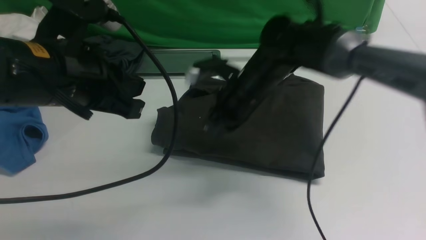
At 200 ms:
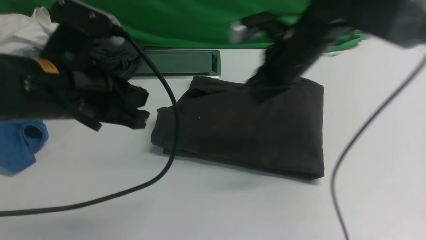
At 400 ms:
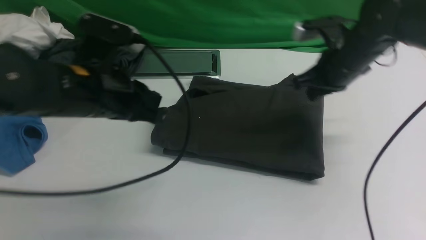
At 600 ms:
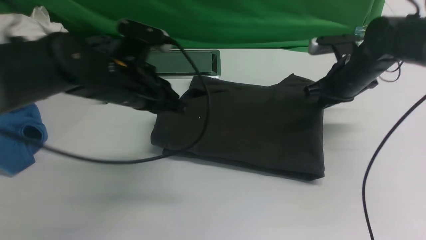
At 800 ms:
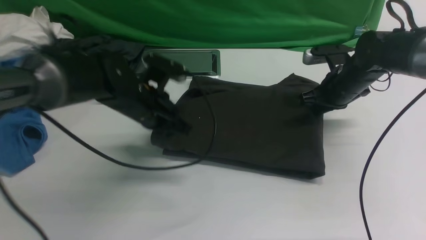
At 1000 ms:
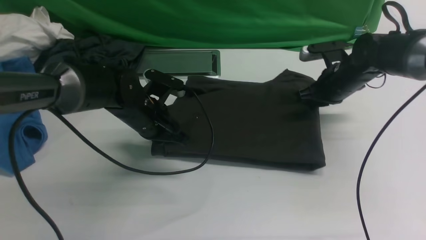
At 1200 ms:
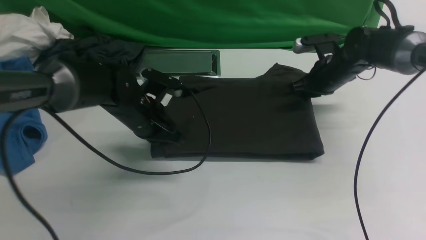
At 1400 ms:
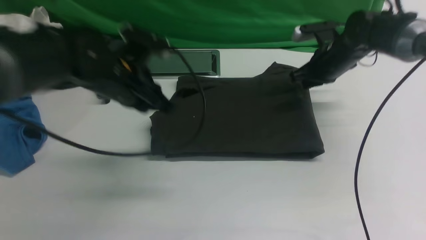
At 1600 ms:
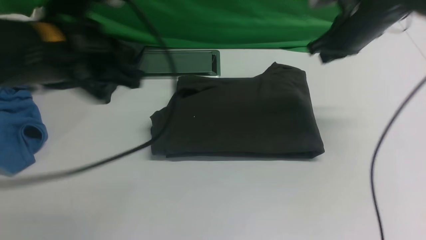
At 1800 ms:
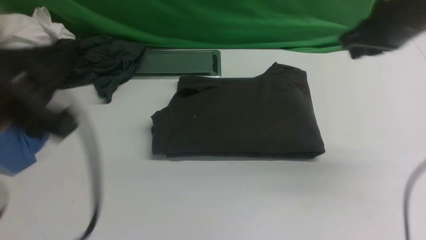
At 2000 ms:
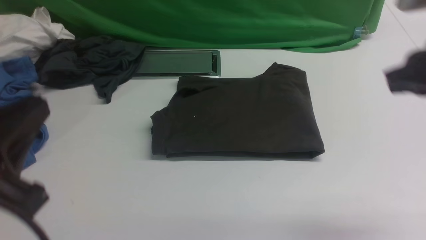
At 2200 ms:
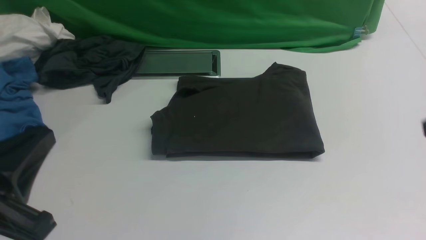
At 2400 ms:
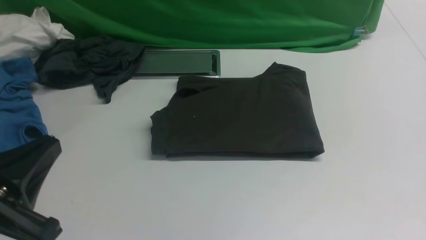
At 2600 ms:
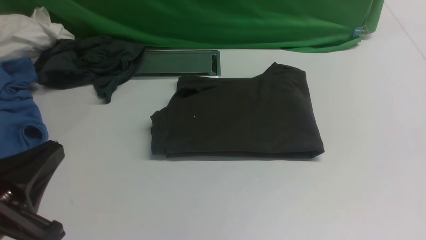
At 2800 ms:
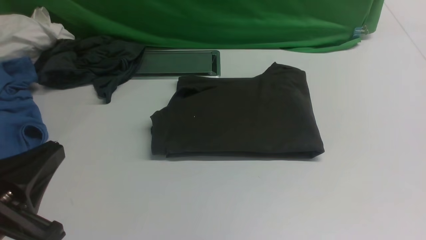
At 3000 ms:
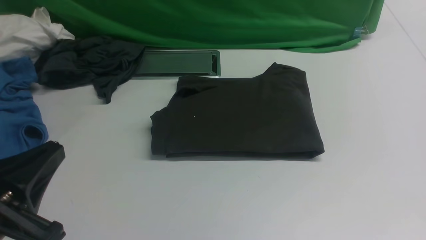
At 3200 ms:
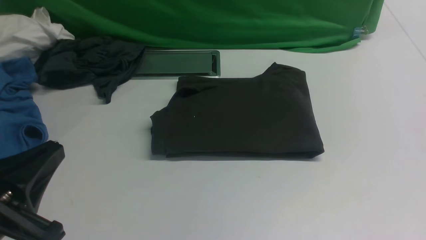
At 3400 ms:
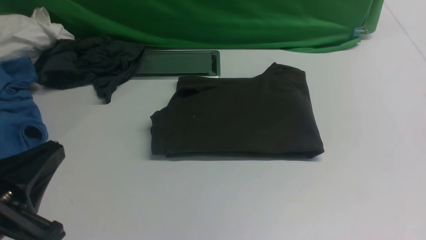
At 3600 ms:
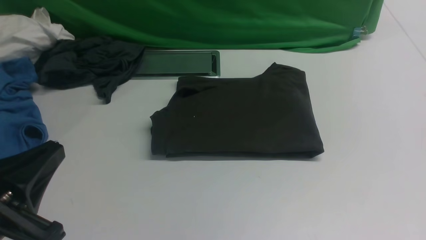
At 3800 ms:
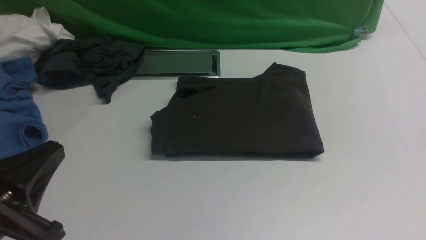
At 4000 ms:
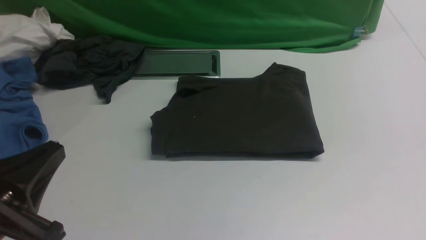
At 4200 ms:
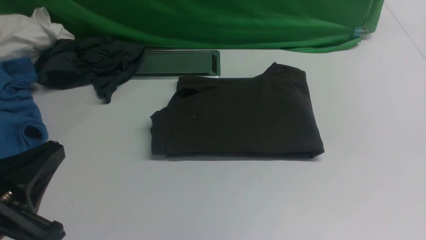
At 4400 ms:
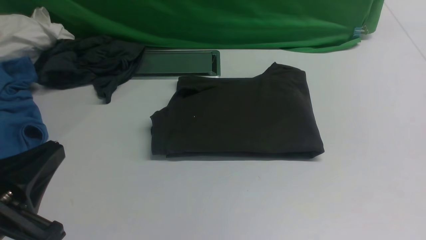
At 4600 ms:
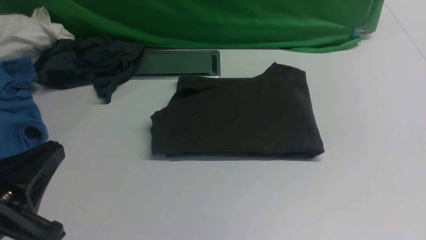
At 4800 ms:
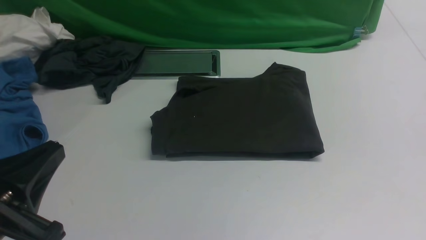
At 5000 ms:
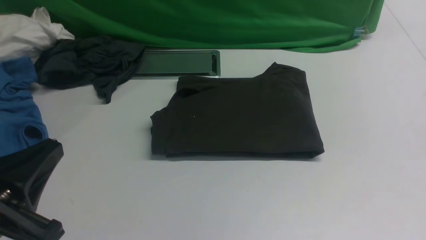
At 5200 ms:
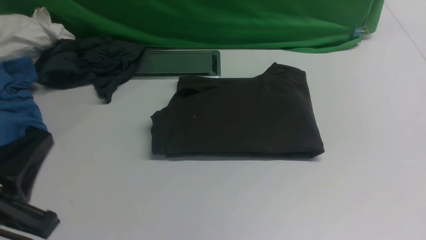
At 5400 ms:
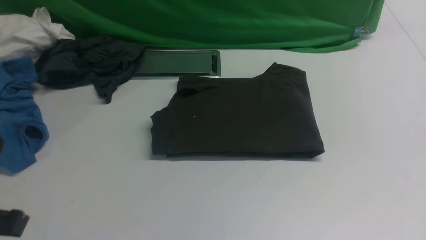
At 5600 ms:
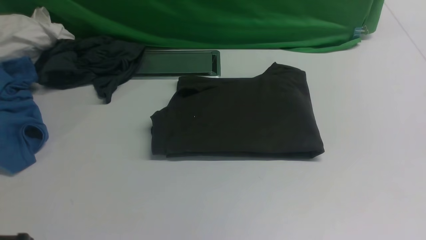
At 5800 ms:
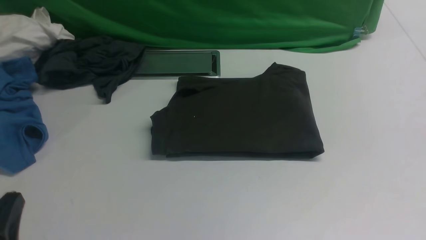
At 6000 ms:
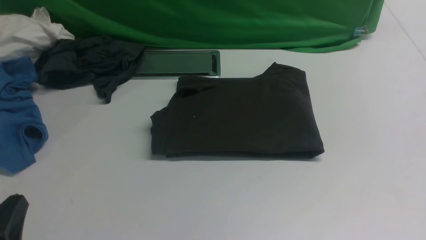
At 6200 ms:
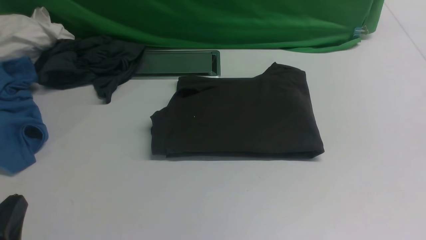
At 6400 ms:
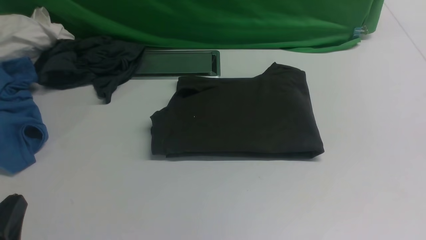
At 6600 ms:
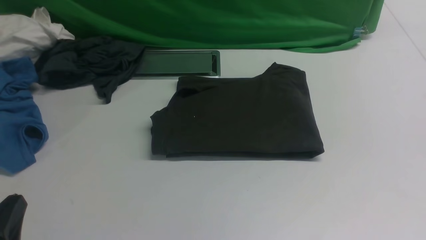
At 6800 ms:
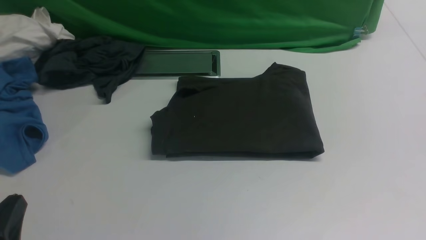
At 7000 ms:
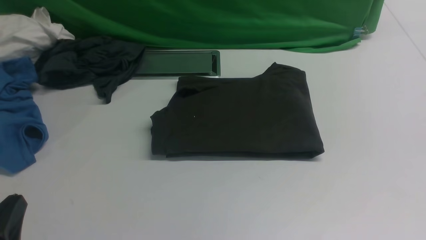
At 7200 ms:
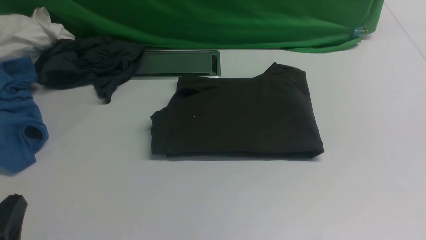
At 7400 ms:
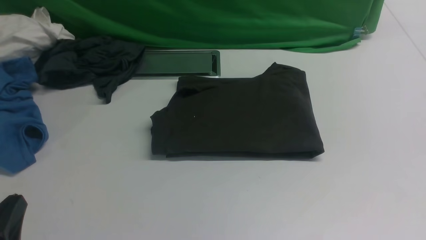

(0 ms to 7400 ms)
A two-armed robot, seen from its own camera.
0 ms - 1400 ms: The right gripper moves to the right and forward, roughly 20 cm. The left gripper shifts some 10 cm forward, and reaches roughly 15 cm downward, then returns.
1400 ms - 3000 ms: The left gripper goes roughly 25 cm backward; the right gripper shifts some 40 cm backward.
4400 ms - 6000 ms: The left gripper is displaced downward by some 10 cm.
6000 ms - 7400 ms: The two grippers keep their place.

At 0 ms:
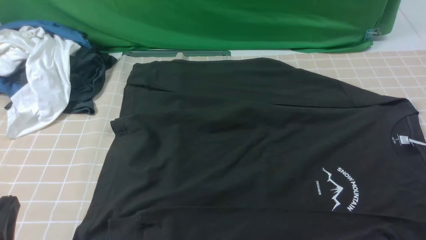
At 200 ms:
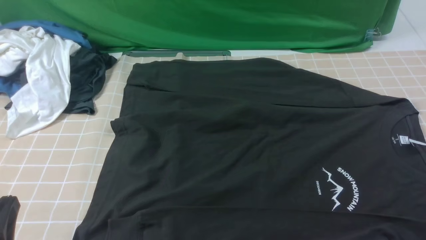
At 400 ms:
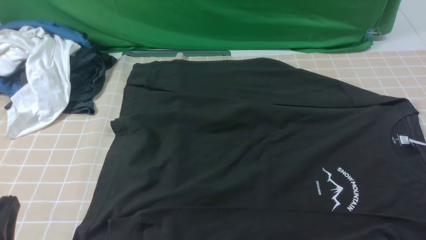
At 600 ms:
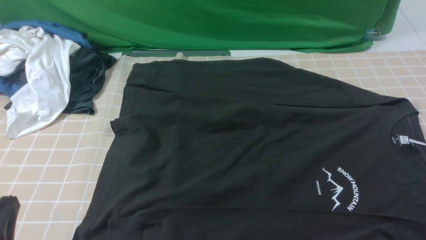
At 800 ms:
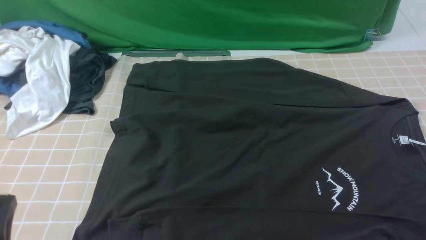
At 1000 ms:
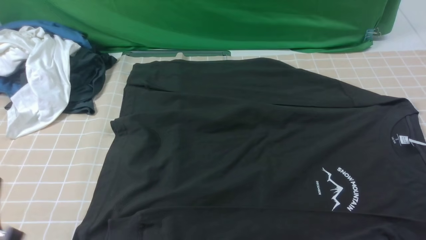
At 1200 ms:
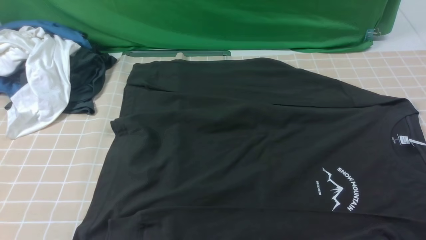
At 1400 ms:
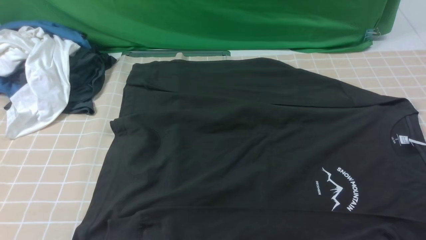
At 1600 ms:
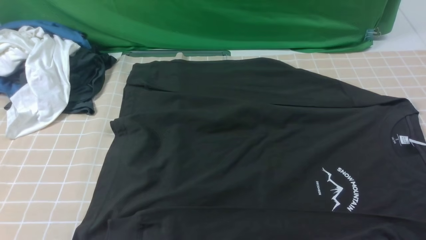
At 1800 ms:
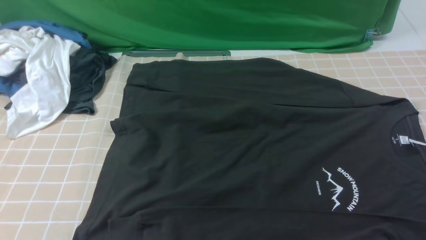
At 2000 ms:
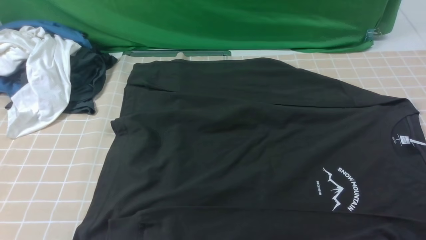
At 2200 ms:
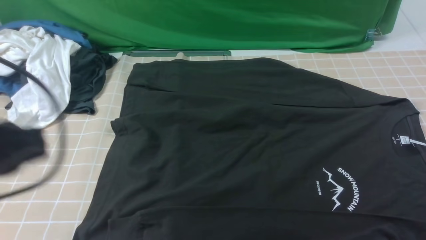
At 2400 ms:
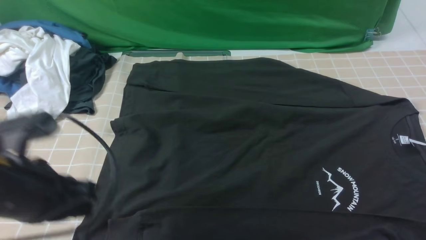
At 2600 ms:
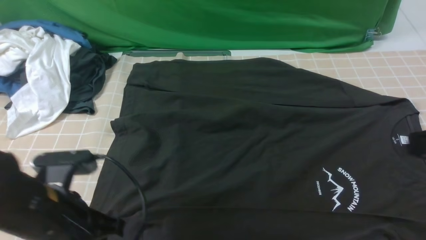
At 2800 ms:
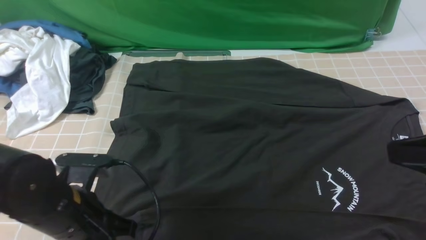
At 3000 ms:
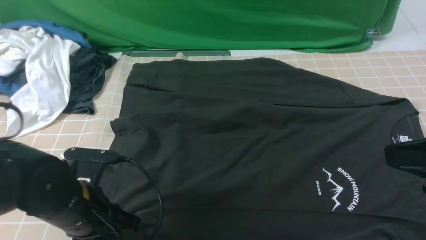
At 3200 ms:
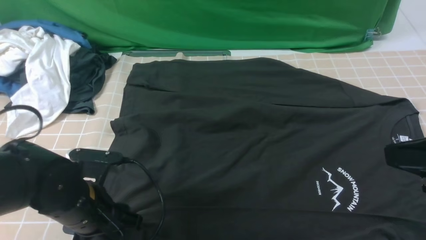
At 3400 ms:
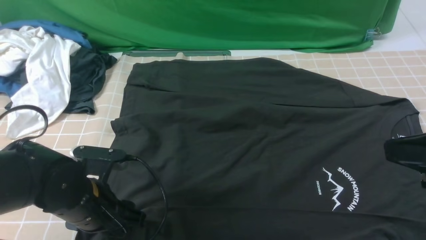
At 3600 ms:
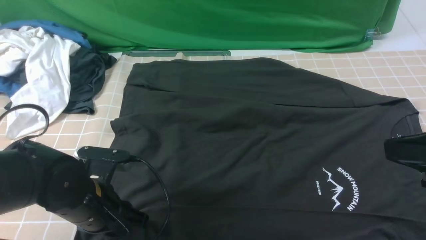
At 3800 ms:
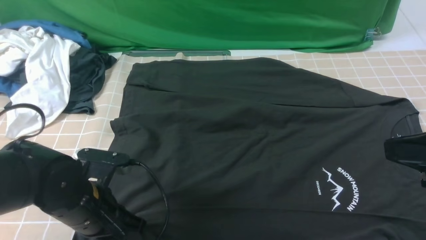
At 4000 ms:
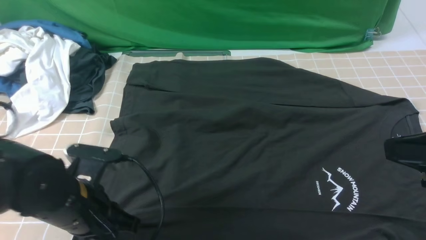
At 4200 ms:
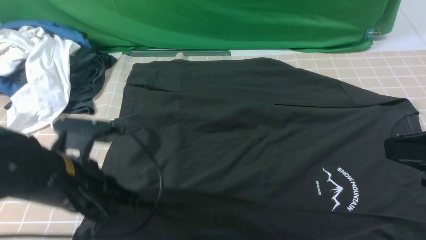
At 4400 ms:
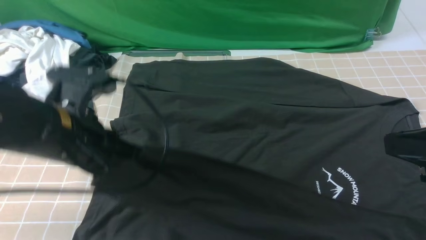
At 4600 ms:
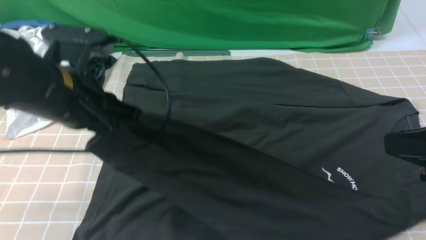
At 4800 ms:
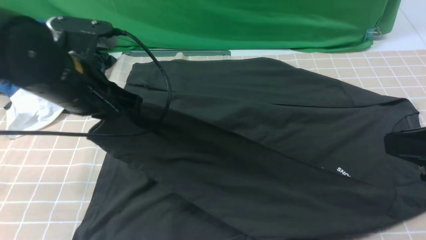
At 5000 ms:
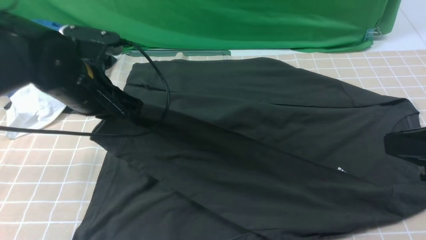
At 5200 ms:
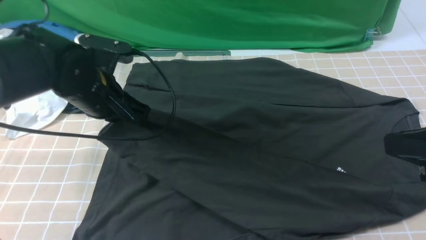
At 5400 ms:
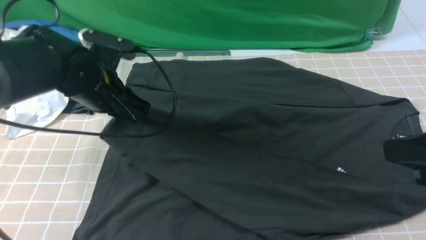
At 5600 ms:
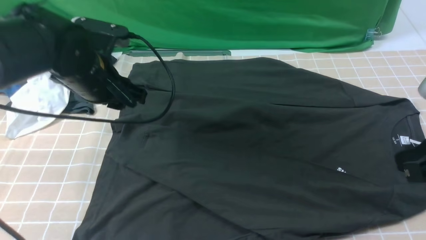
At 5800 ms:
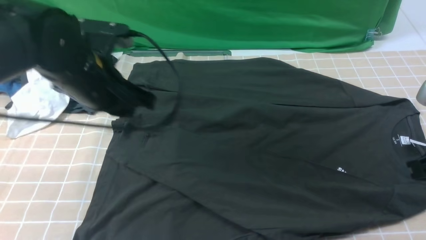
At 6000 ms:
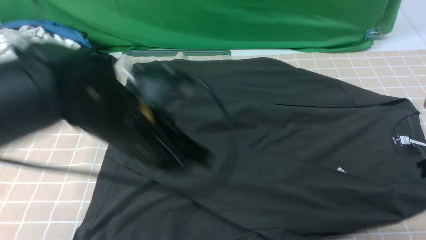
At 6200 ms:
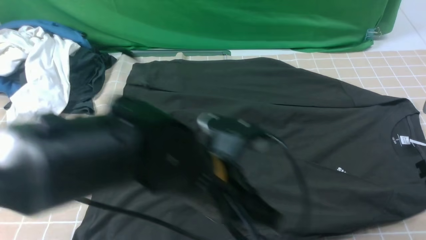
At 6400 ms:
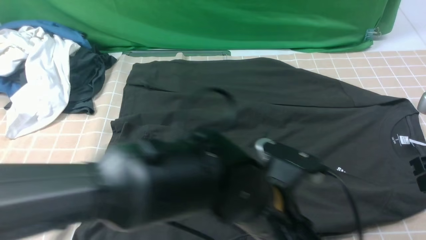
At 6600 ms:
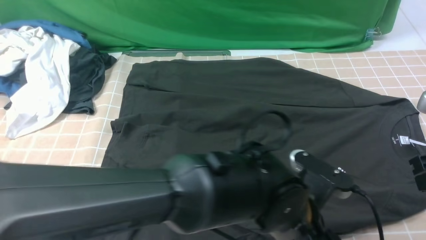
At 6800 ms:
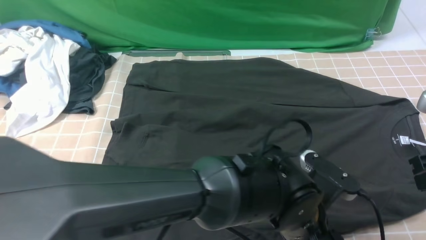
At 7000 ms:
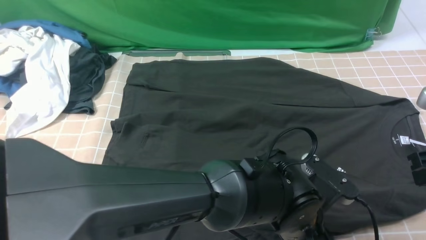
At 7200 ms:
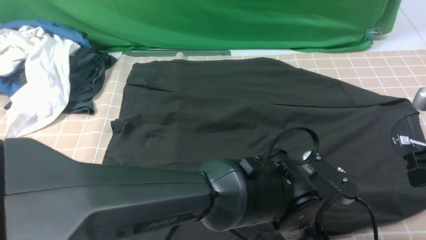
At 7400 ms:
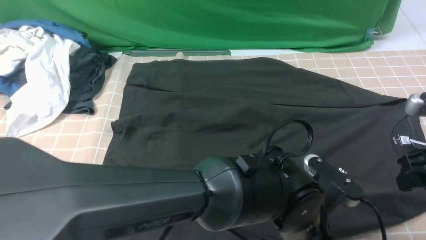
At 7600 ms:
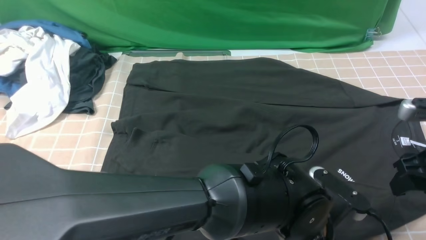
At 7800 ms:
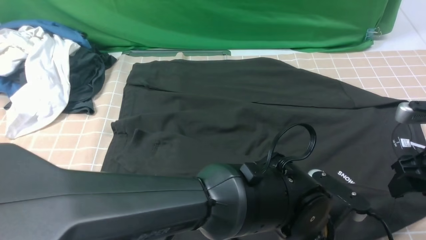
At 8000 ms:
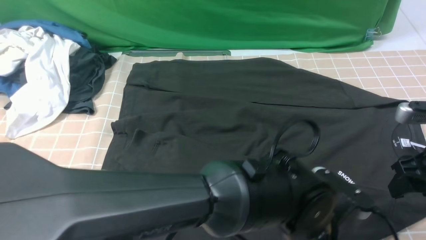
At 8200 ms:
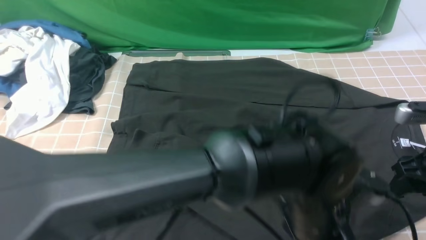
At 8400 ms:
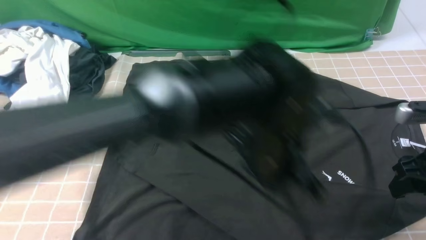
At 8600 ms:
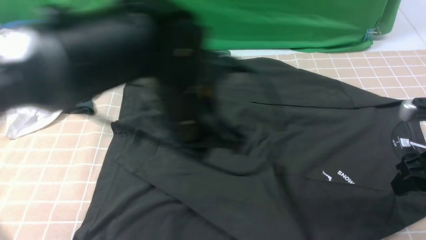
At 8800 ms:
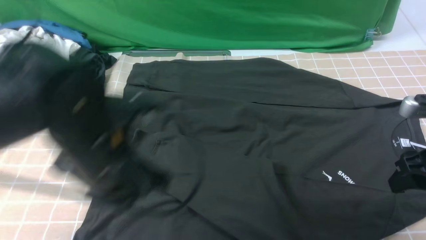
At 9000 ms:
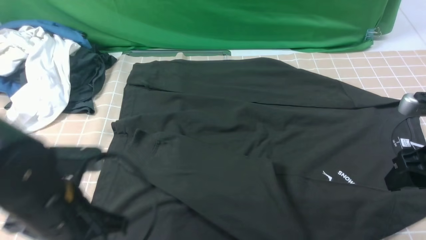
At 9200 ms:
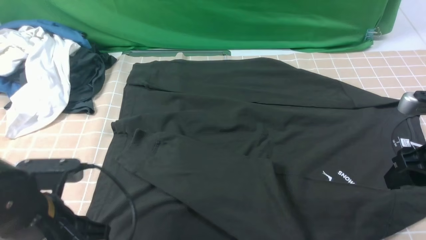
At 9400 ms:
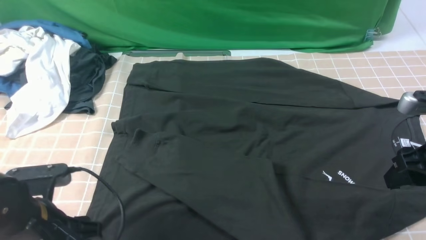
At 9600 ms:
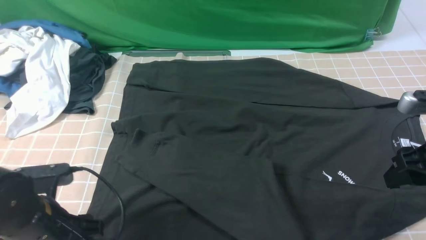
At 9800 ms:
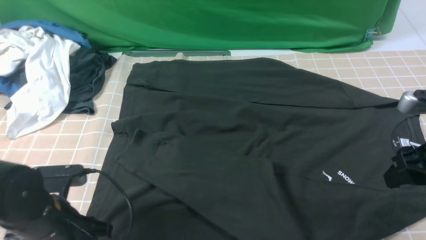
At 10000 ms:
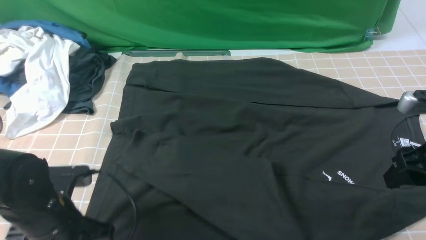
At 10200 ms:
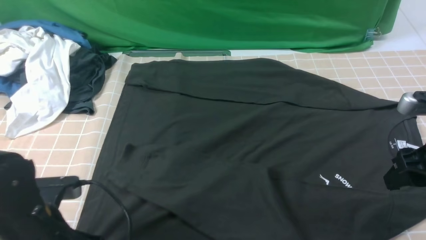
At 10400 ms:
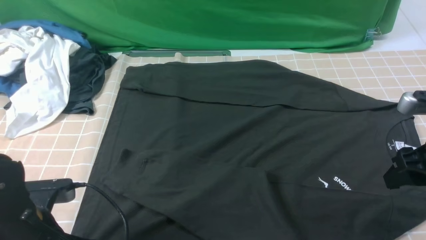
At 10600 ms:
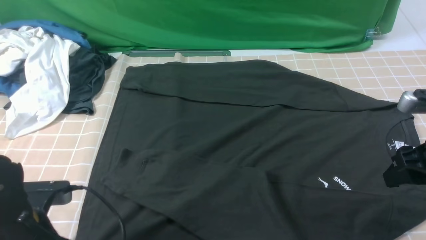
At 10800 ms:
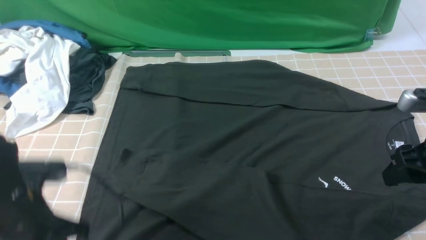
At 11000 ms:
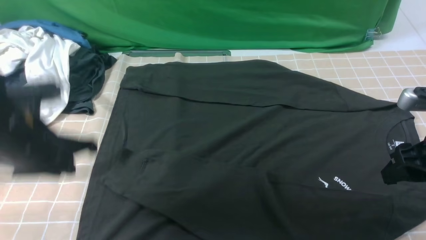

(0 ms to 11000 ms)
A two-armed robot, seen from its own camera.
Step, 0 ms - 3600 ms: use the left arm to clamp the cuff closest to it.
Step, 3800 ms - 5400 ms: use the left arm to drag and place the cuff at the centered position on the left edge of the fabric.
0 ms - 1600 ms: The left gripper goes approximately 10 cm upward.
1600 ms - 3200 ms: The right gripper heads upward, forward and to the left, covering approximately 15 cm, and closes up. The left gripper heads forward, downward and to the right, covering roughly 20 cm, and opens up.
3200 ms - 4800 ms: The left gripper is displaced upward and forward by some 15 cm, and closes up.
4800 ms - 6200 ms: The left gripper heads to the right and backward, covering roughly 20 cm. Meanwhile the right gripper shifts approximately 10 cm downward, forward and to the right.
6200 ms - 7800 ms: The right gripper moves roughly 5 cm, and opens up. The left gripper heads to the right and downward, covering roughly 15 cm, and opens, then closes once more.
7800 ms - 9400 ms: The left gripper goes roughly 35 cm to the left, and opens its fingers.
9400 ms - 11000 ms: The left gripper is displaced upward and forward by some 15 cm, and closes.
